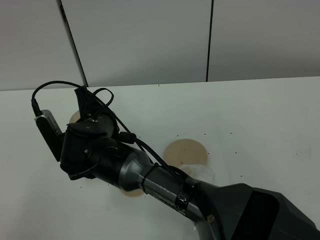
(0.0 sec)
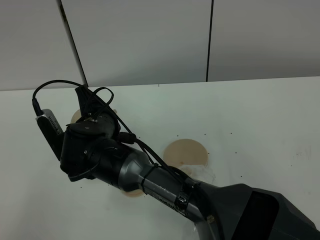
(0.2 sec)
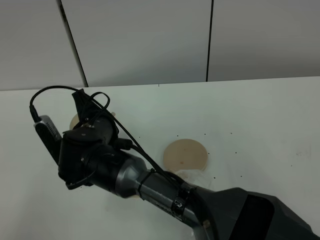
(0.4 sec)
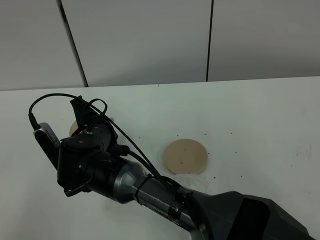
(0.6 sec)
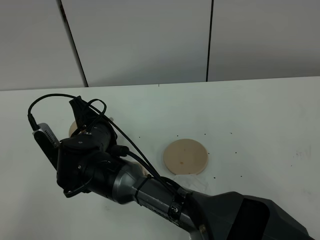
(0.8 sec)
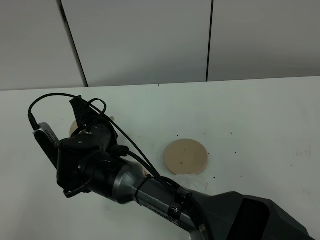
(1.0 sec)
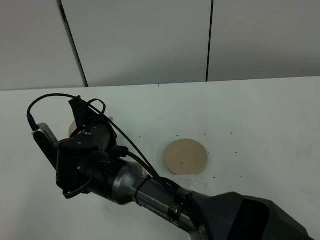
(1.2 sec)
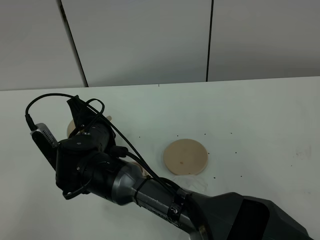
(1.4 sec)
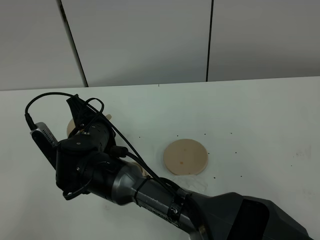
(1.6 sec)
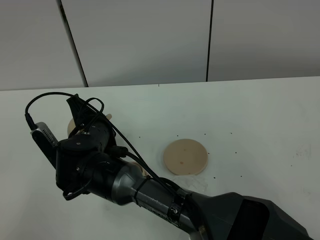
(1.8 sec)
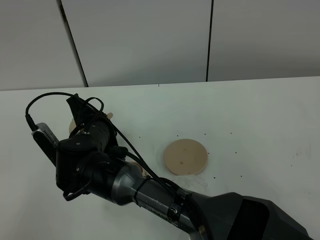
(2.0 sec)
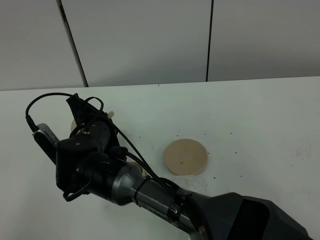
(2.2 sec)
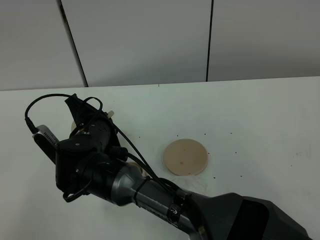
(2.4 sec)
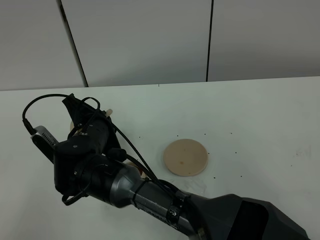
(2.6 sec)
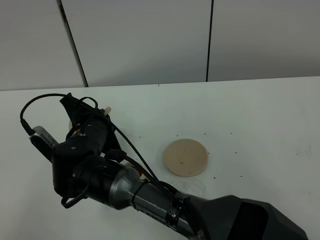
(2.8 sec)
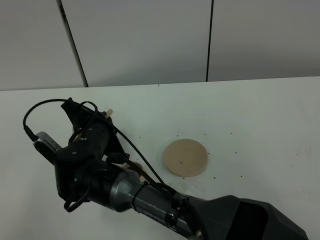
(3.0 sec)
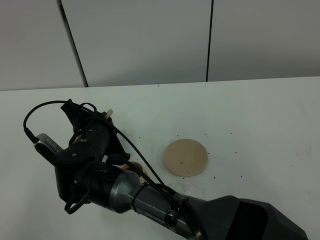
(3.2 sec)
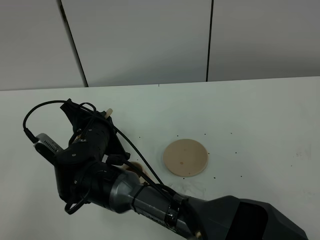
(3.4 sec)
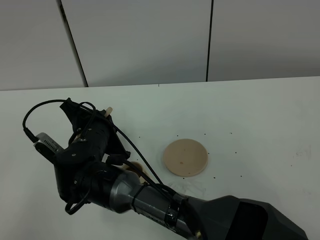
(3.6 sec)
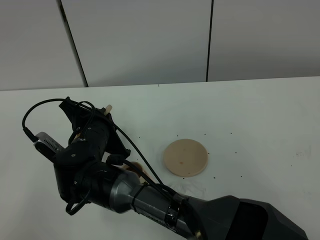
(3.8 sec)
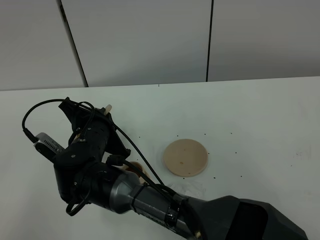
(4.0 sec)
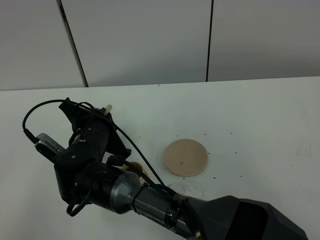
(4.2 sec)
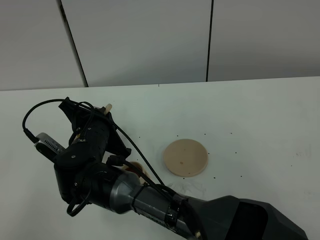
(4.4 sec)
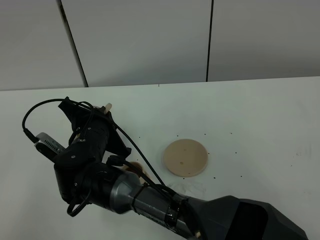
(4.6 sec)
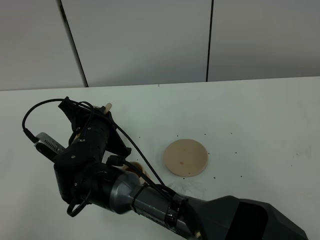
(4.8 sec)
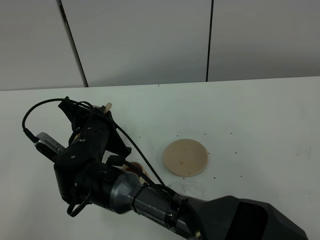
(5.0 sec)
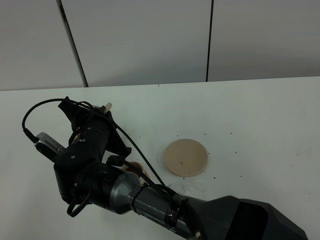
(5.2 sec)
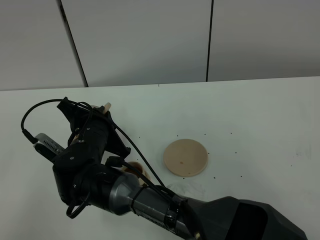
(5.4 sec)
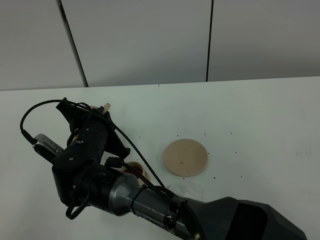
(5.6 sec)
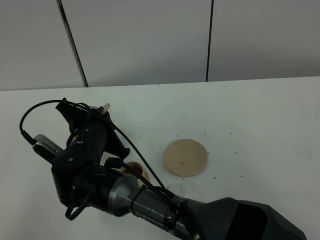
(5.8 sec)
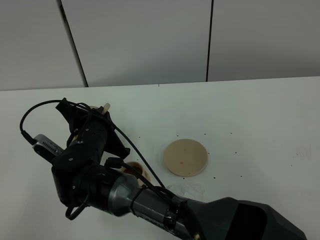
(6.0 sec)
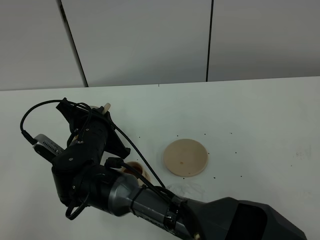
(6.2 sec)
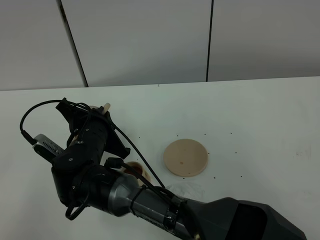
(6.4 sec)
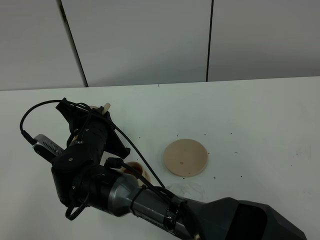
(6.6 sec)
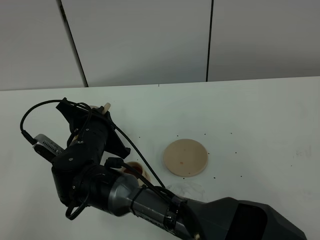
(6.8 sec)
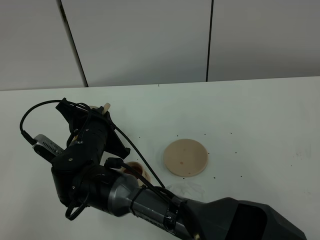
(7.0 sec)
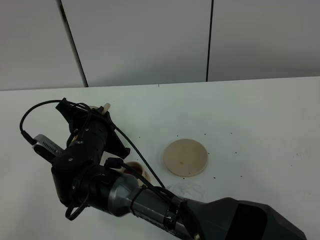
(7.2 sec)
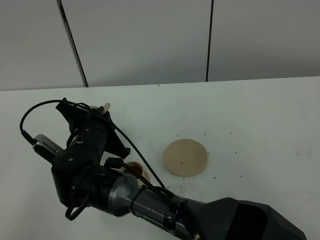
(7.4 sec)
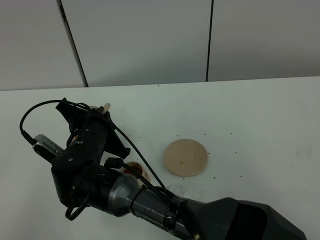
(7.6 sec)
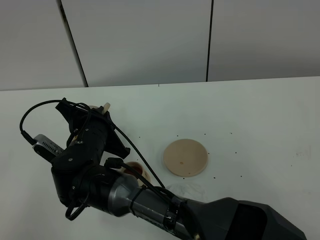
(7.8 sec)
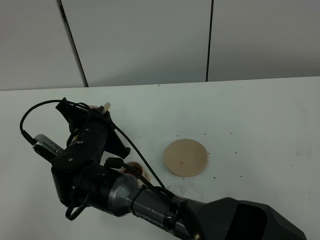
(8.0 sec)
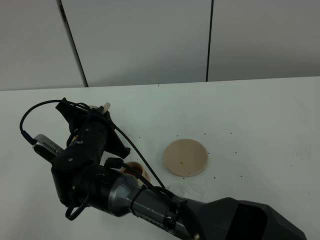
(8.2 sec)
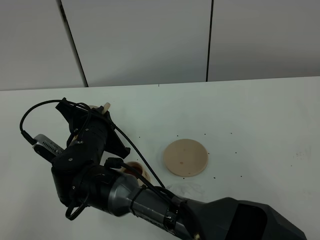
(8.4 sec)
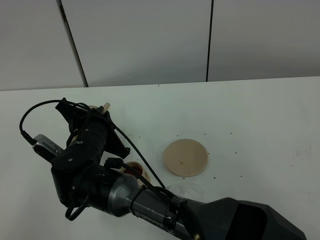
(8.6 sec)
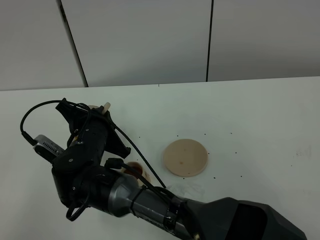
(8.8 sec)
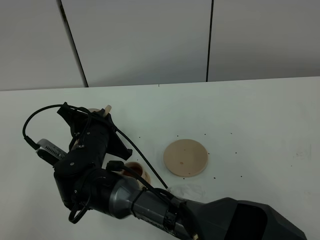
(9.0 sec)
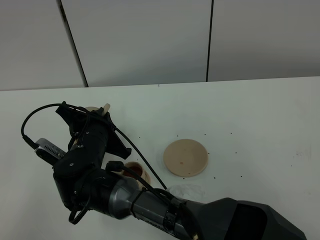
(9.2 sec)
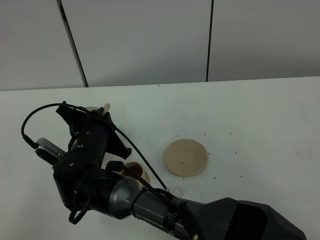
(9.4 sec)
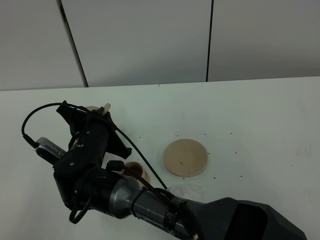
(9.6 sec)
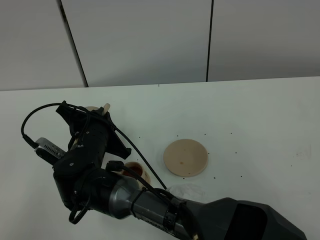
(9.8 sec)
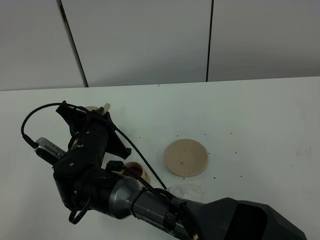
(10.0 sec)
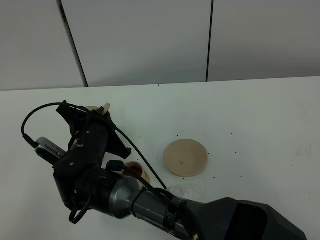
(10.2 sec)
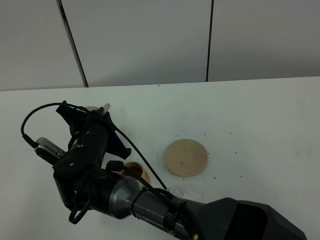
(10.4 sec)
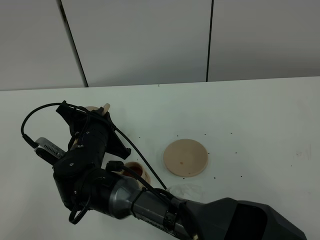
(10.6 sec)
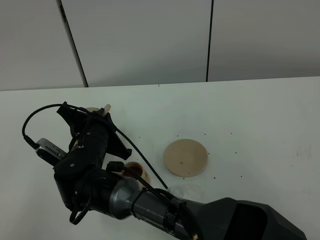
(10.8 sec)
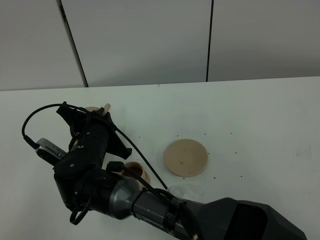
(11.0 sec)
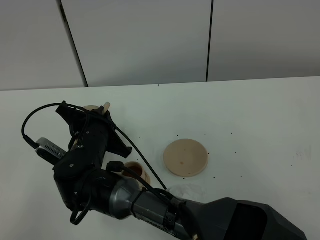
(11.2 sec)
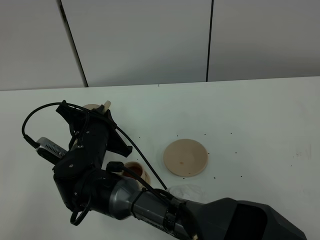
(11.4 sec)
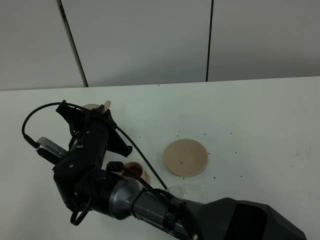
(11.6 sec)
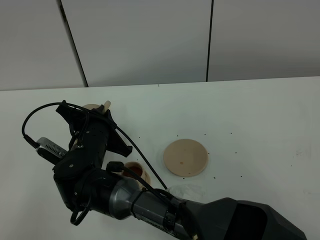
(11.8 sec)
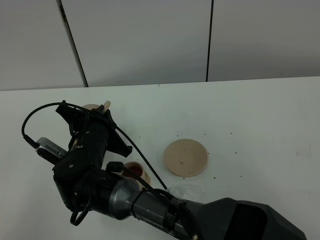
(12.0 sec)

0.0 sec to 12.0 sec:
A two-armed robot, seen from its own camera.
Task of the whole recording: grasp the brown teapot and pour the tea into the two brown teacups one by one, put the brown teapot back in its original place.
0.0 sec to 3.0 sec: There are only small adjustments of the grippers.
3.0 sec to 4.4 sec: There are only small adjustments of the grippers.
4.4 sec to 10.4 sec: Both grippers stay about where they are.
10.4 sec to 12.0 sec: Both grippers stay about where they are.

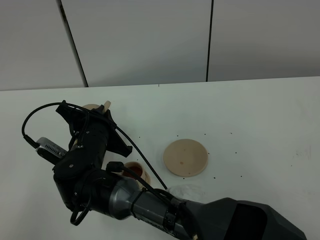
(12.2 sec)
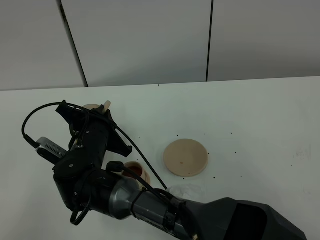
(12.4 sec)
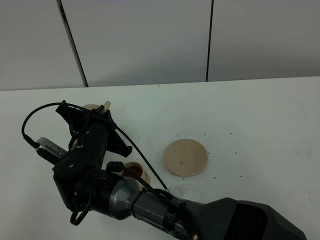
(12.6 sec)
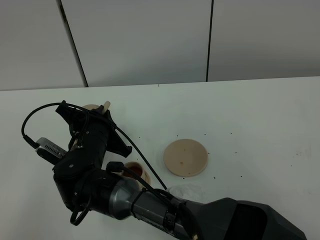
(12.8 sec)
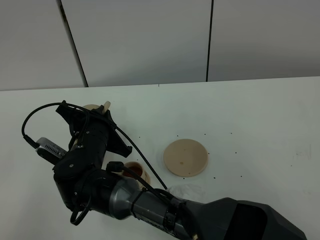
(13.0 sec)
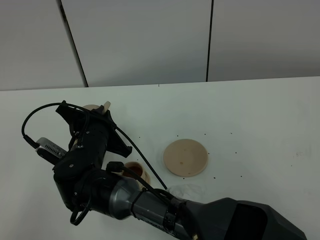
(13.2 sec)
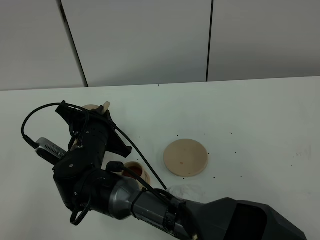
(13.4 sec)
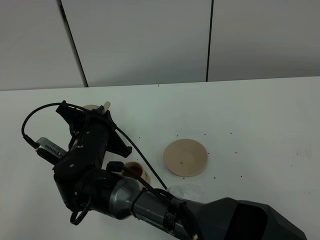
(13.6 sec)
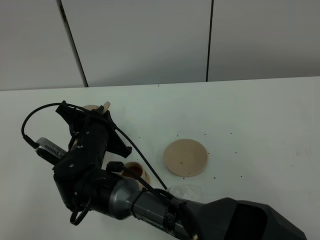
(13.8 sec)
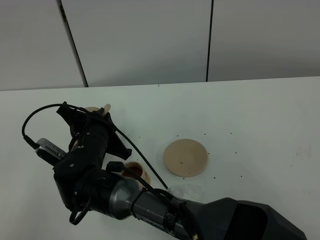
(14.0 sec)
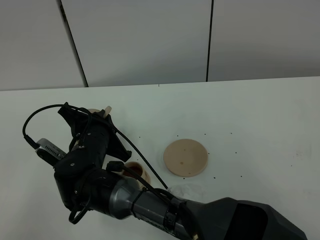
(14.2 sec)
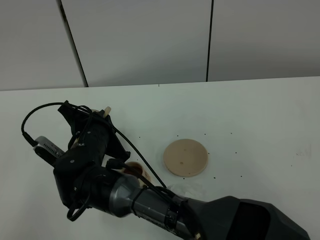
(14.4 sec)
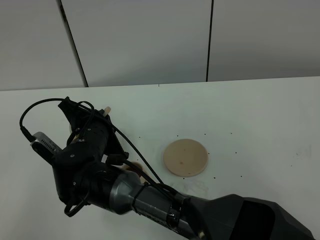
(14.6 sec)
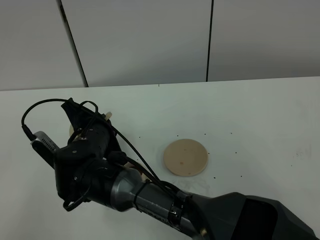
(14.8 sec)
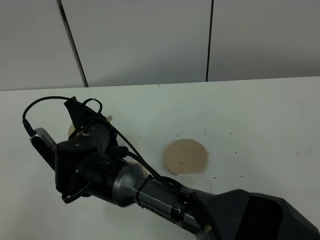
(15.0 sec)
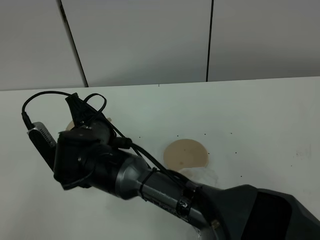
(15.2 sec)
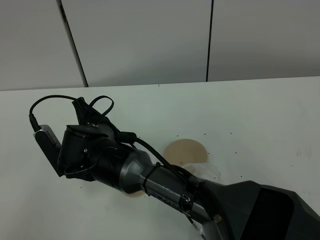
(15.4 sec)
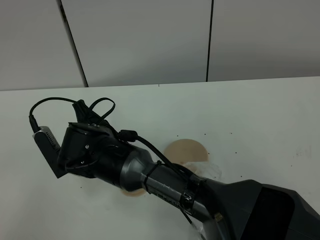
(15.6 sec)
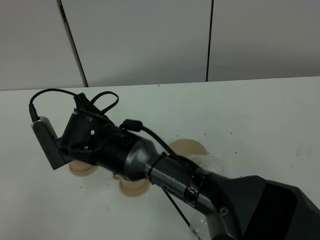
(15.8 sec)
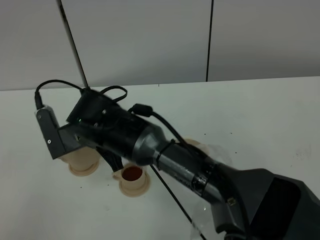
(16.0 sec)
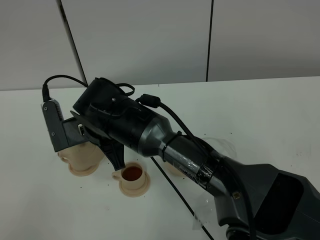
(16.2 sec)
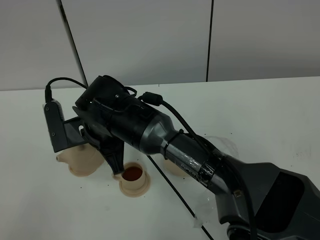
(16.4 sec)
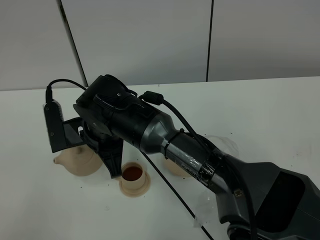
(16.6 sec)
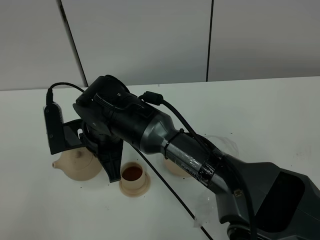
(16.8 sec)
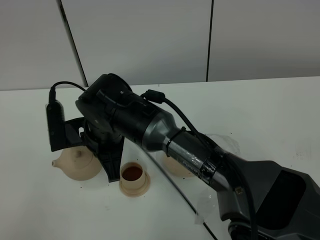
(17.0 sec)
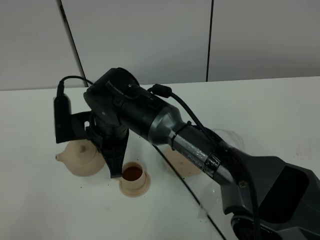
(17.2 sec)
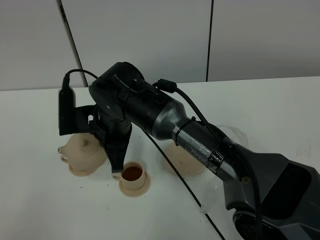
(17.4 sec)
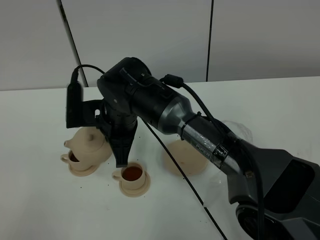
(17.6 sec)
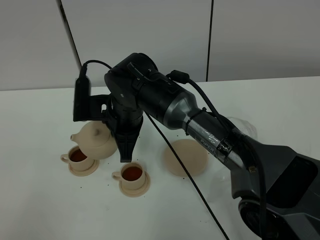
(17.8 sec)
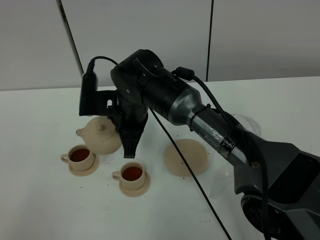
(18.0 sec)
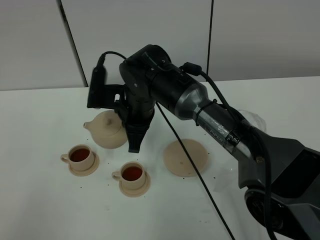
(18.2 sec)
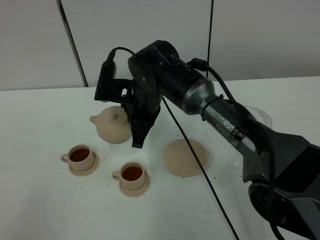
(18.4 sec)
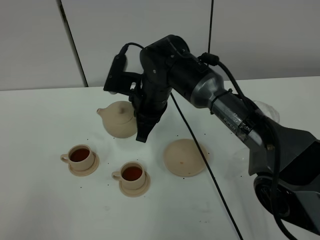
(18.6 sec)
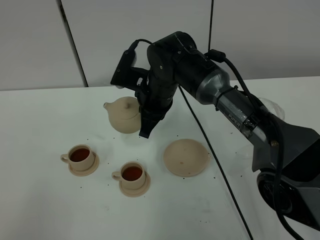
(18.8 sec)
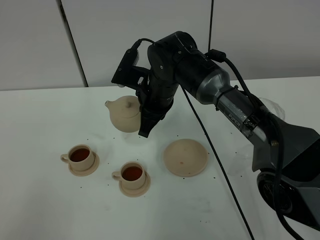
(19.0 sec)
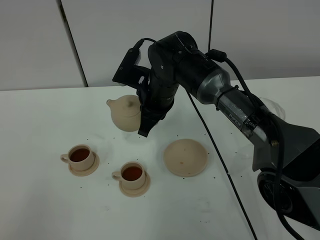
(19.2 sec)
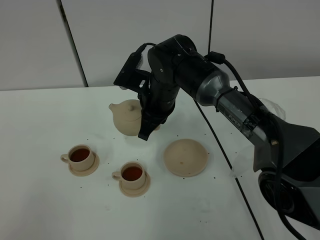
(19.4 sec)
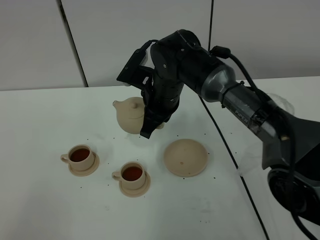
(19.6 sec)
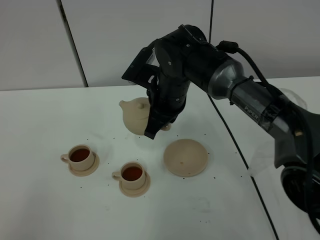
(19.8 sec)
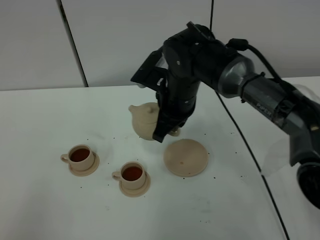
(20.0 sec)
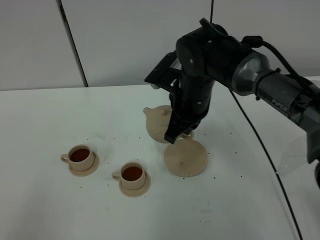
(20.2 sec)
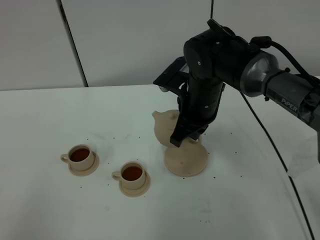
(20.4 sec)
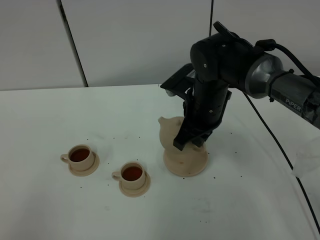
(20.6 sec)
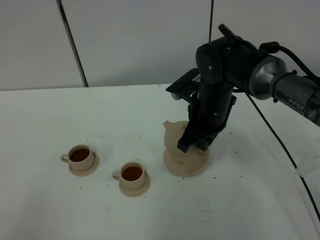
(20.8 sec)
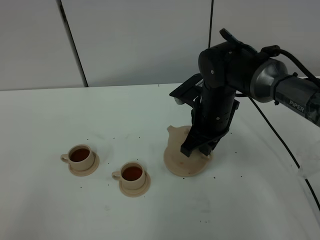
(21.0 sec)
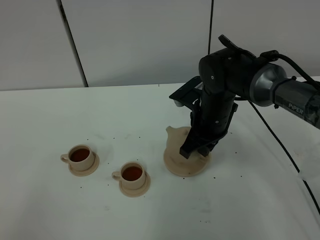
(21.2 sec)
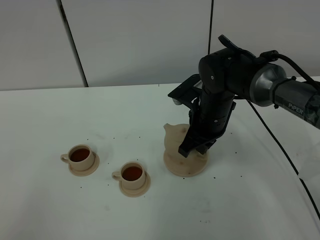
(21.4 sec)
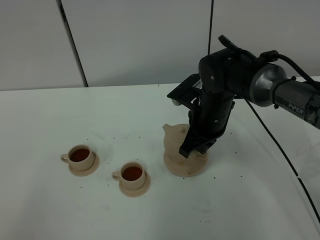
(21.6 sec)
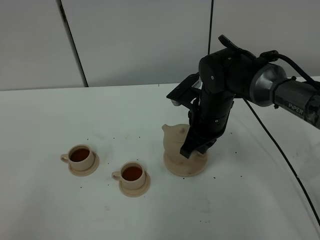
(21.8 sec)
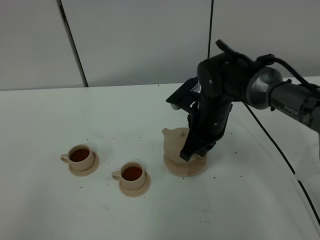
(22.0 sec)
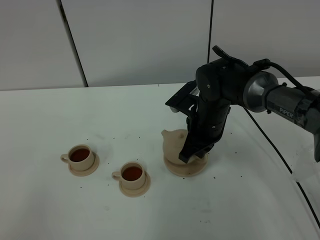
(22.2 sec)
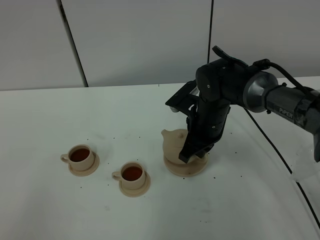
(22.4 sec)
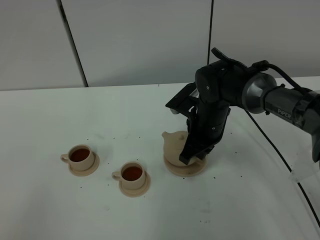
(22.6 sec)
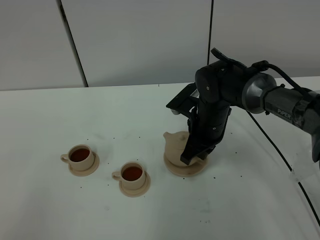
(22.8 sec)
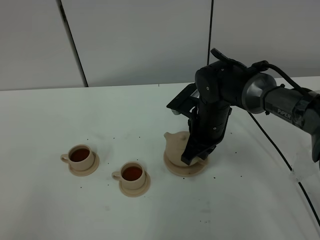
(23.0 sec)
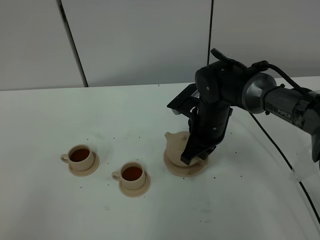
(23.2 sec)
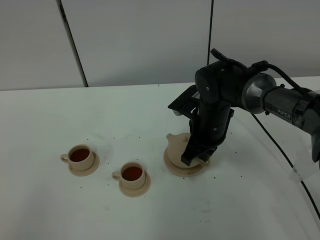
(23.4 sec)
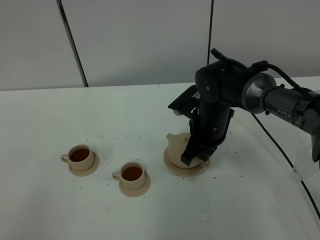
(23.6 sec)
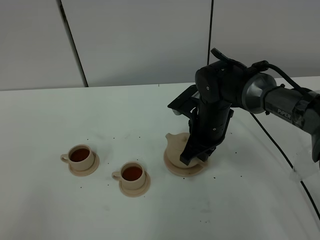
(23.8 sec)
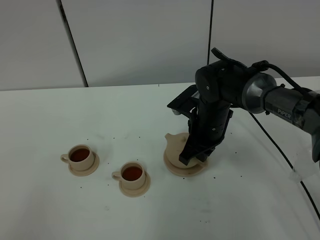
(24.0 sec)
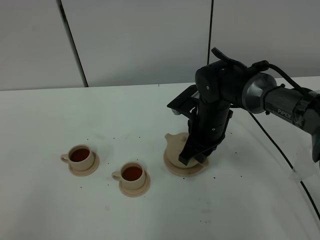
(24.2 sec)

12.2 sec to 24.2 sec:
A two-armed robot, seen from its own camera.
Task of the whole recording: grasp the brown teapot and pour the tea into the two brown teacups one by one, put the brown teapot back in its original place.
Step, 12.2 sec to 16.0 sec: Pour tea into the teacup with the right gripper.
12.2 sec to 13.8 sec: Both grippers stay put.
16.6 sec to 18.2 sec: The right gripper heads forward and to the right, covering approximately 10 cm.
18.2 sec to 19.8 sec: The right gripper heads to the right, covering roughly 5 cm.
19.8 sec to 21.2 sec: The right gripper travels to the right by about 5 cm.
21.2 sec to 22.6 sec: The grippers stay close to where they were, moving slightly.
22.6 sec to 24.2 sec: The right gripper opens up.
